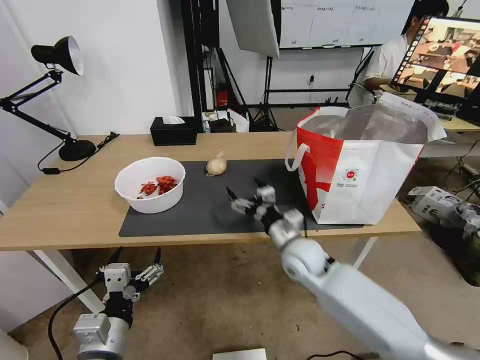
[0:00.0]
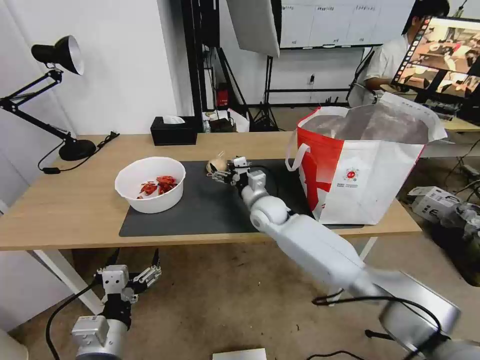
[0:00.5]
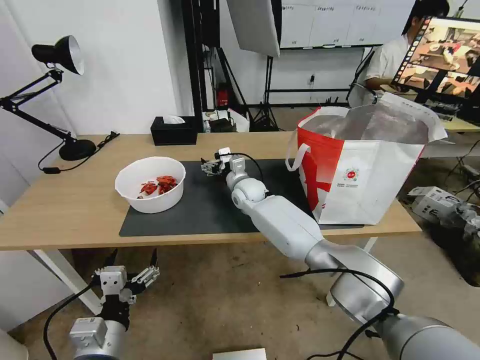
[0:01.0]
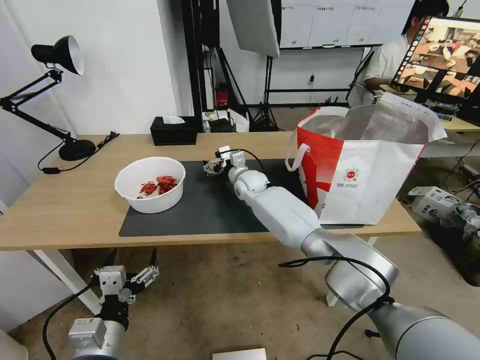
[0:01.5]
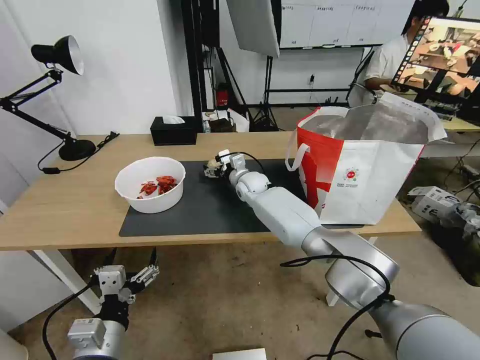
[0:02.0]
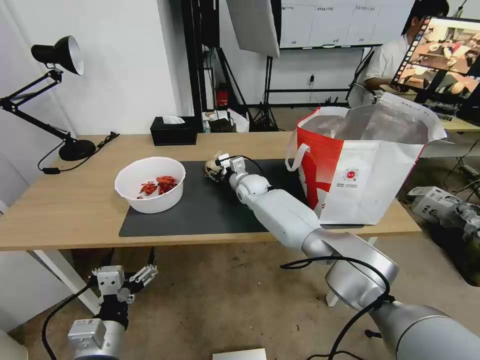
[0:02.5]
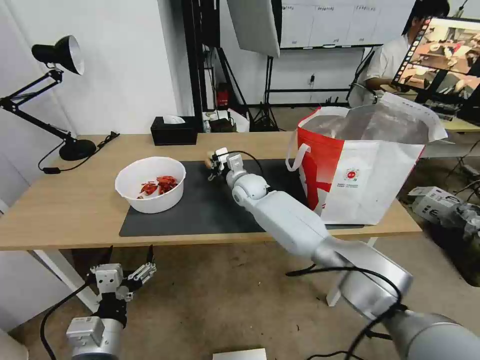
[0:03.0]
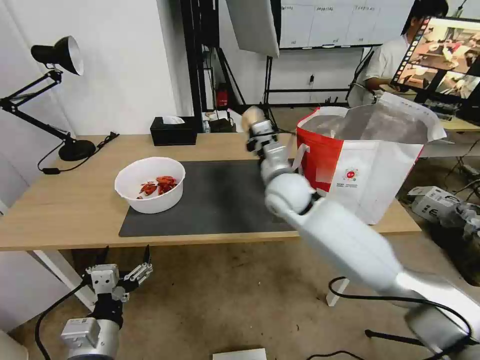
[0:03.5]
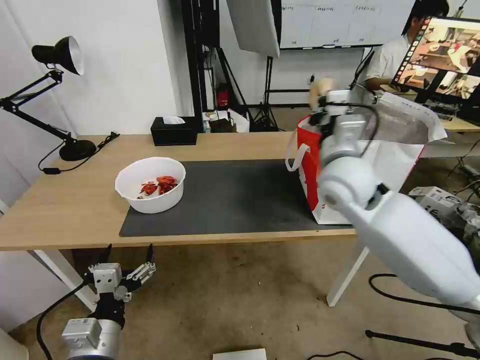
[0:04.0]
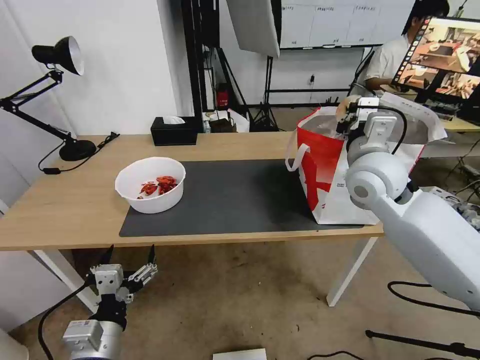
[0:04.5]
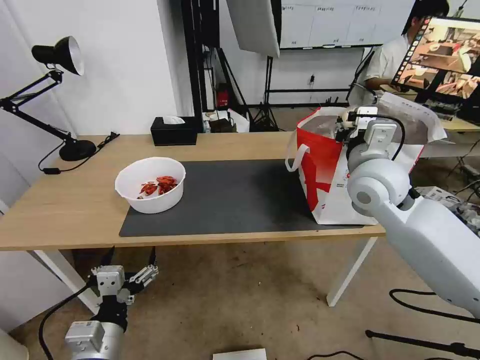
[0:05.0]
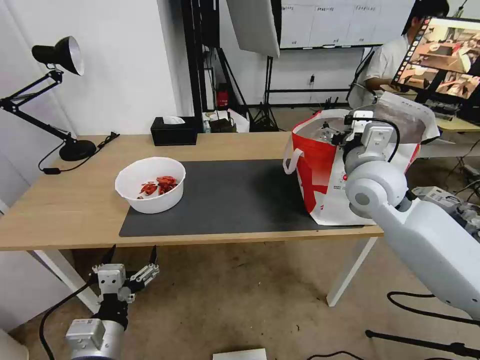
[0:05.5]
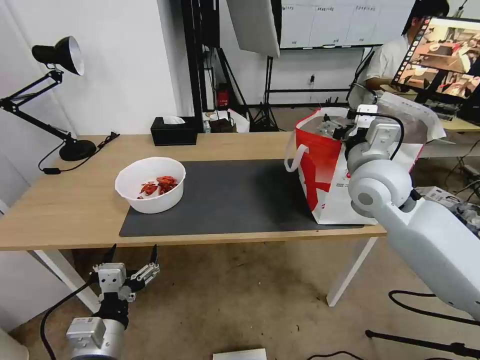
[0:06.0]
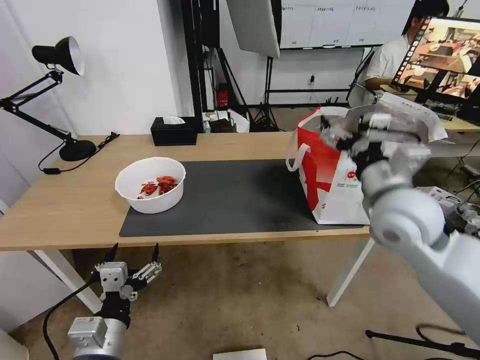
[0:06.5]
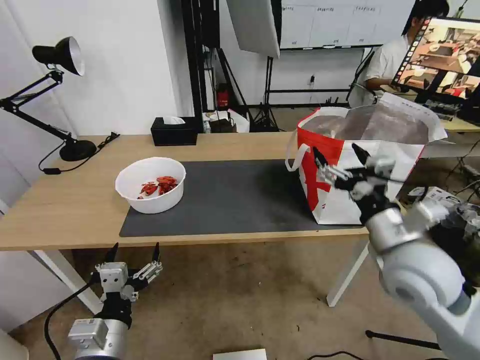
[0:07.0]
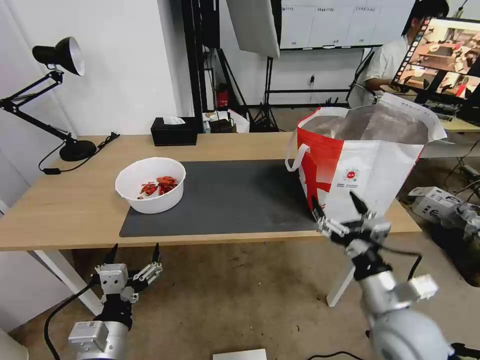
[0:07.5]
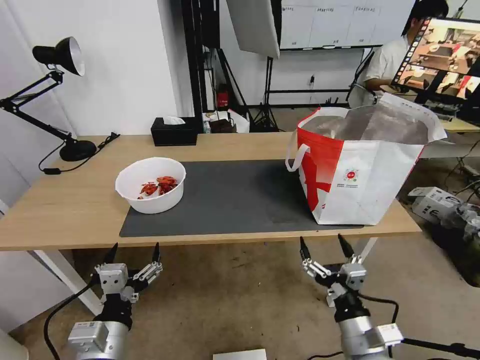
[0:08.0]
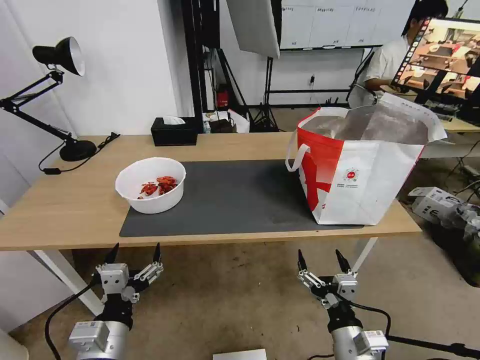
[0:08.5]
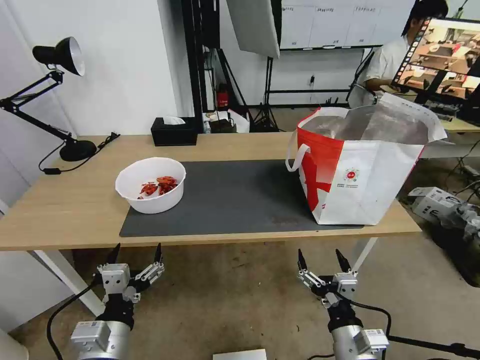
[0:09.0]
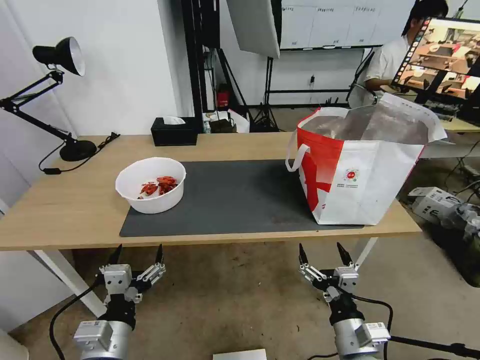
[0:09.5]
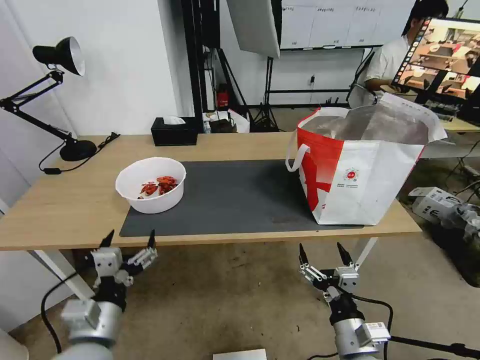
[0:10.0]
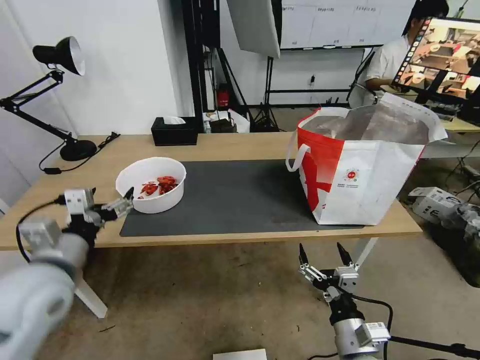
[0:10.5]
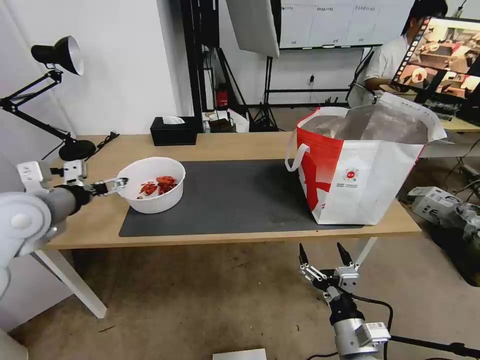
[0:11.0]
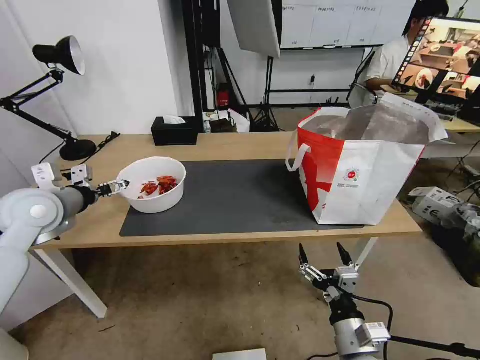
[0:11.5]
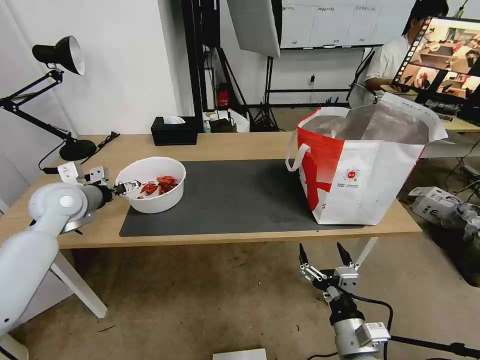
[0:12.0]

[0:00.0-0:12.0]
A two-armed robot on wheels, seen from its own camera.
Task of the whole recording: Pick up the trash from the table and place it into the takeout bag.
0:00.0 to 0:02.0: The right gripper heads forward and to the left, covering about 25 cm.
0:02.0 to 0:04.0: The right gripper moves upward, backward and to the right, approximately 30 cm, and closes up.
0:04.0 to 0:06.0: The right gripper opens.
0:06.0 to 0:08.0: The right gripper heads backward and downward, covering roughly 35 cm.
0:08.0 to 0:10.0: The grippers move only a little.
0:10.0 to 0:12.0: The left gripper moves forward and to the left, some 30 cm.

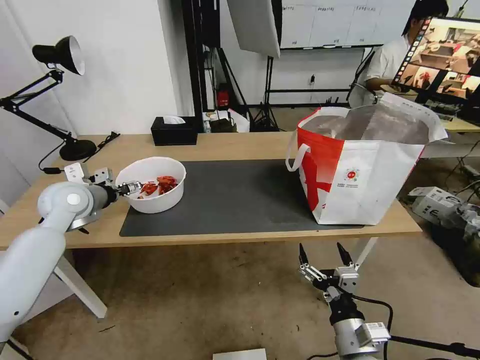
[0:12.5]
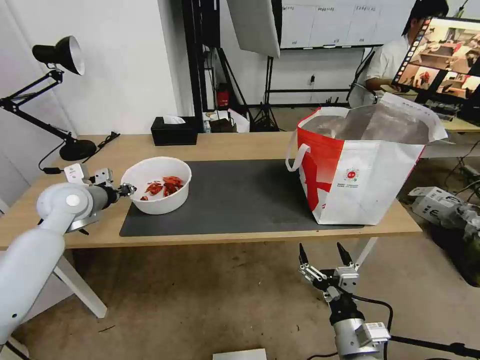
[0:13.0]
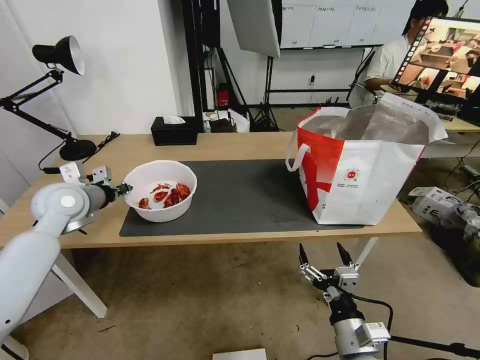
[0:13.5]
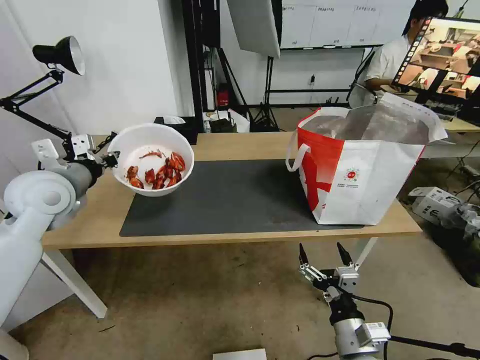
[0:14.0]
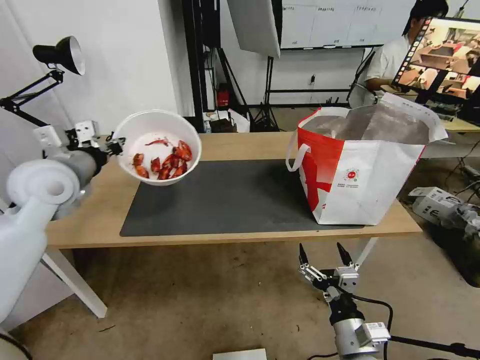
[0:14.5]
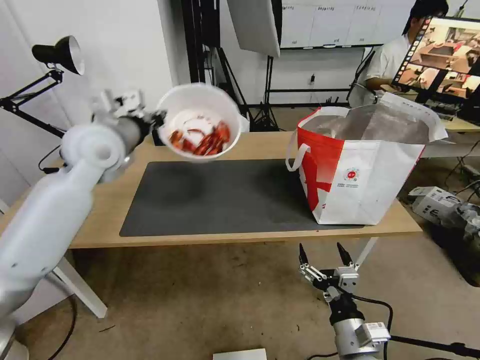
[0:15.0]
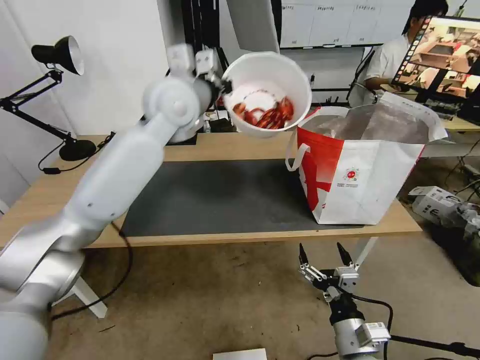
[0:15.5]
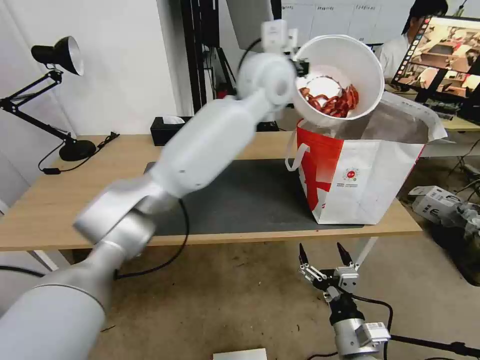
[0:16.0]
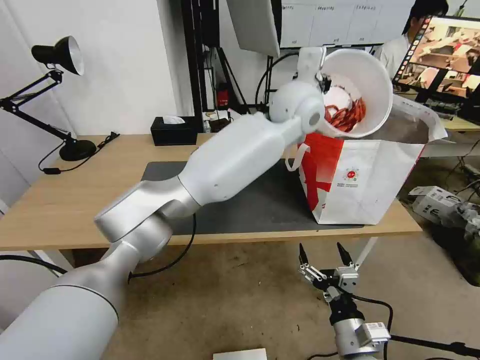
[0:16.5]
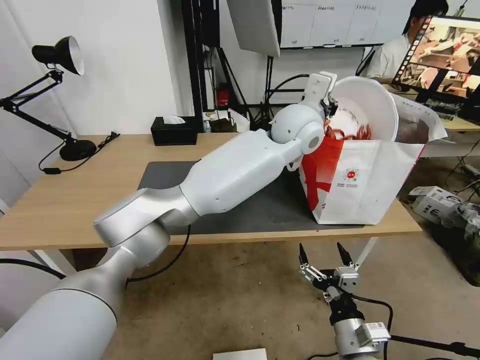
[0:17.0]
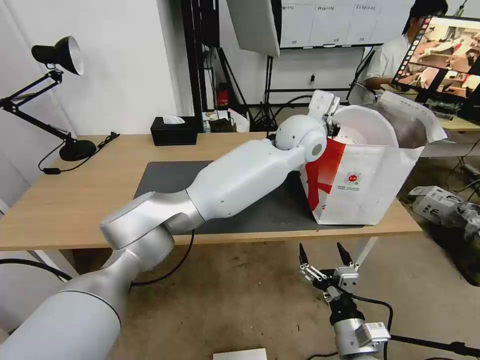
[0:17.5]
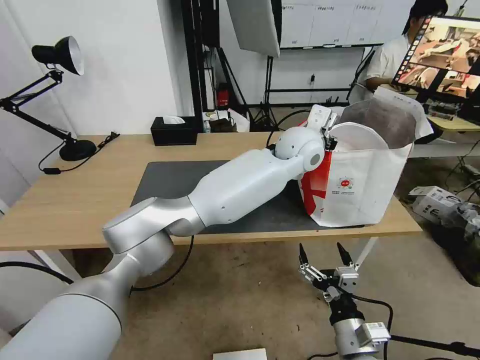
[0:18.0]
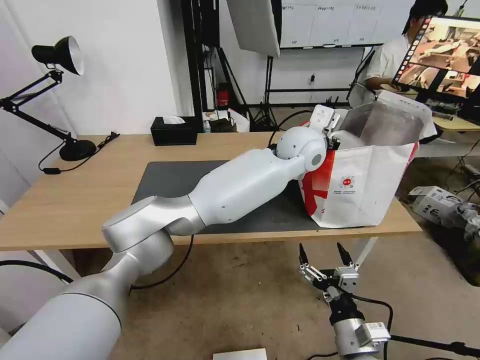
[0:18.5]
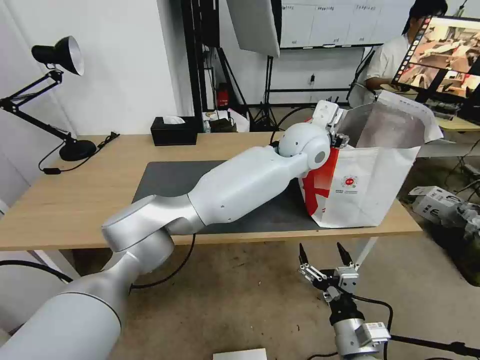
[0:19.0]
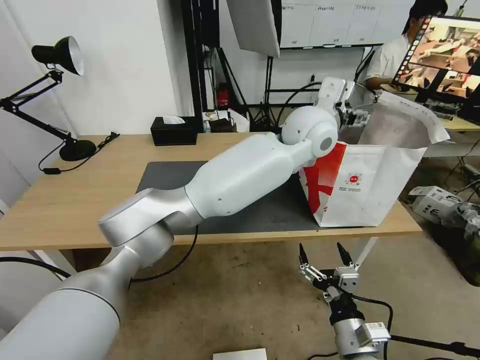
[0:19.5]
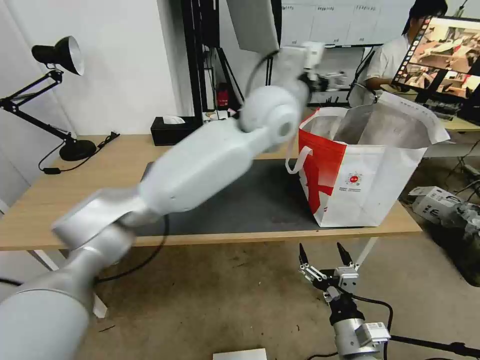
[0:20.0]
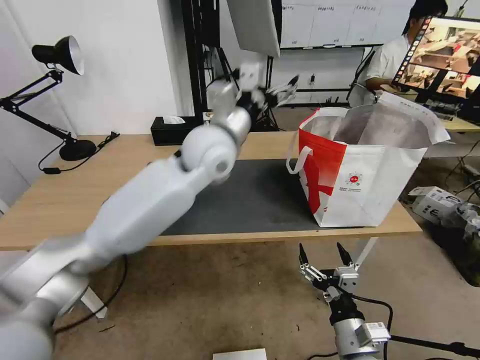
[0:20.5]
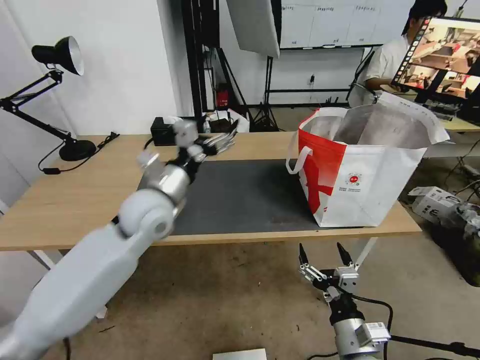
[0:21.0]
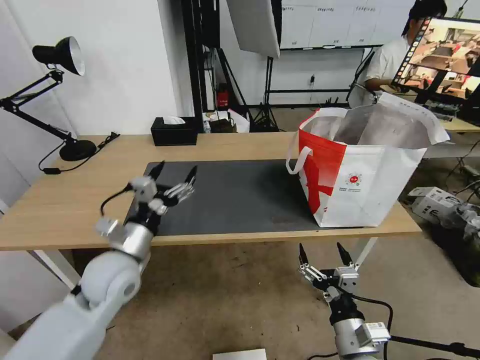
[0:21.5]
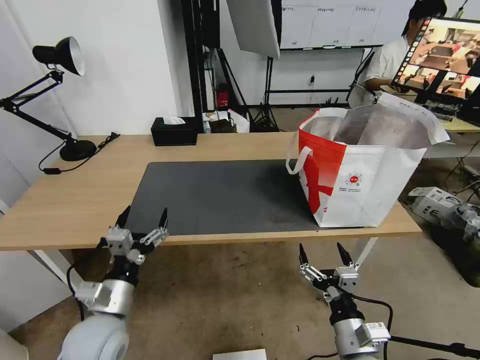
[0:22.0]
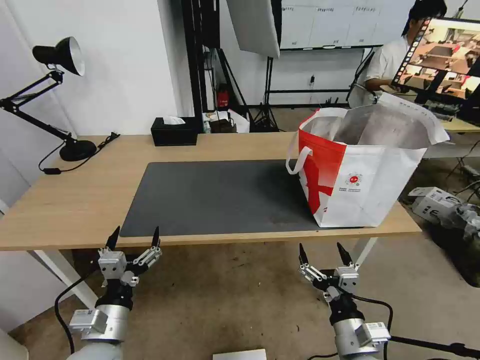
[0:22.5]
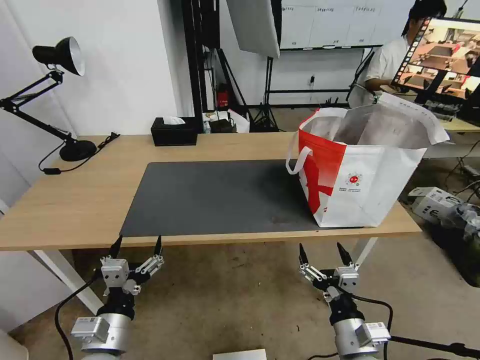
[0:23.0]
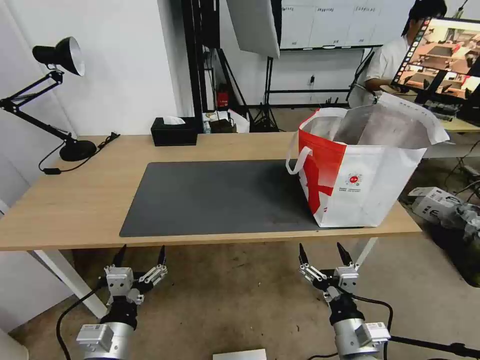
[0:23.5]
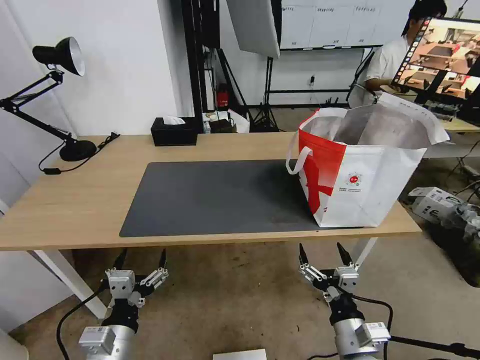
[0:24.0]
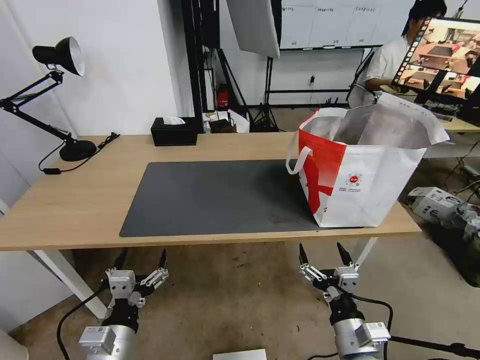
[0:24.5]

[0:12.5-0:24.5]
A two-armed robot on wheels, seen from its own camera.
Task of the whole recording: Pick up the trash from the table and place it into the takeout bag.
0:12.5 to 0:14.5: The left gripper shifts roughly 10 cm upward, and closes.
0:14.5 to 0:16.5: The left gripper shifts roughly 40 cm to the right.
0:16.5 to 0:18.5: The left gripper shifts about 10 cm downward.
0:18.5 to 0:20.5: The left gripper heads to the left, covering roughly 20 cm, and opens up.
0:20.5 to 0:22.5: The left gripper shifts approximately 40 cm backward, downward and to the left.
0:22.5 to 0:24.5: There are only small adjustments of the grippers.

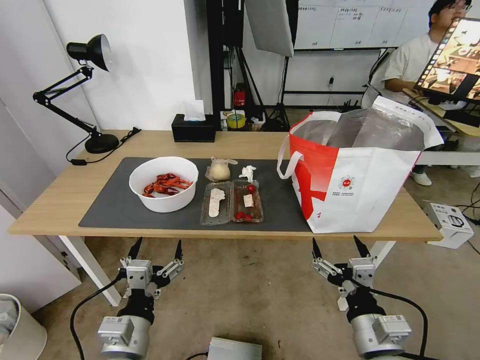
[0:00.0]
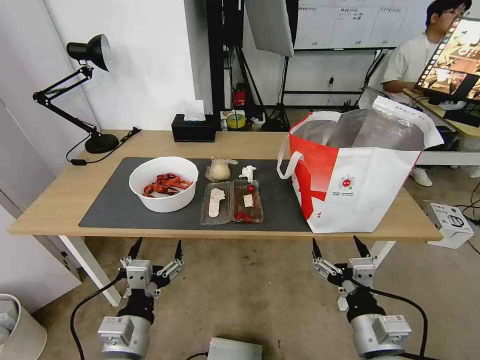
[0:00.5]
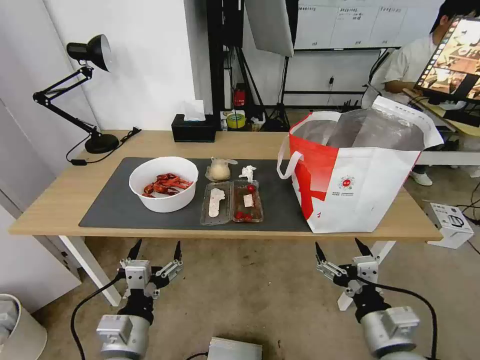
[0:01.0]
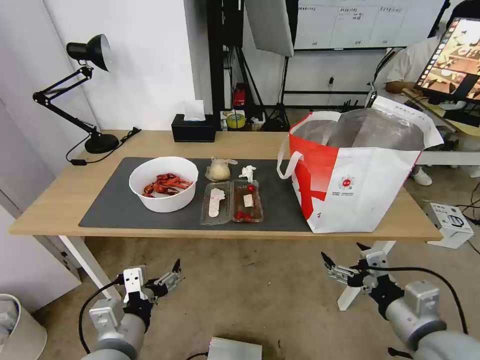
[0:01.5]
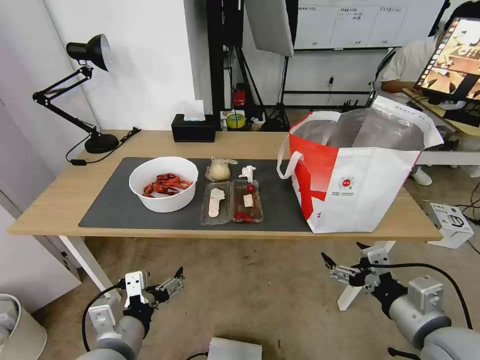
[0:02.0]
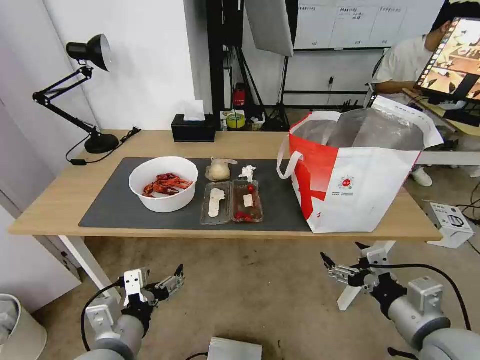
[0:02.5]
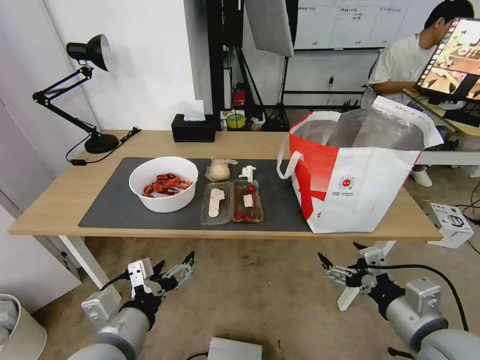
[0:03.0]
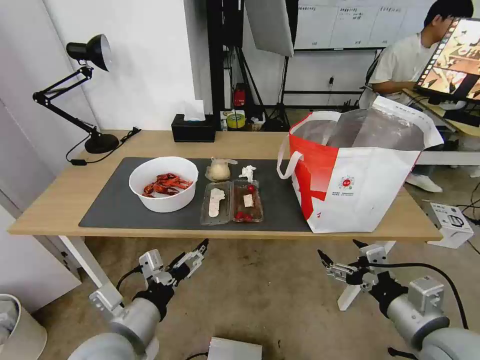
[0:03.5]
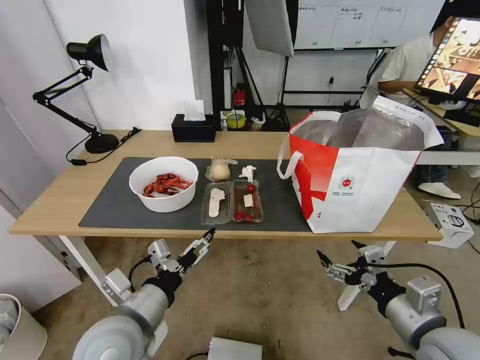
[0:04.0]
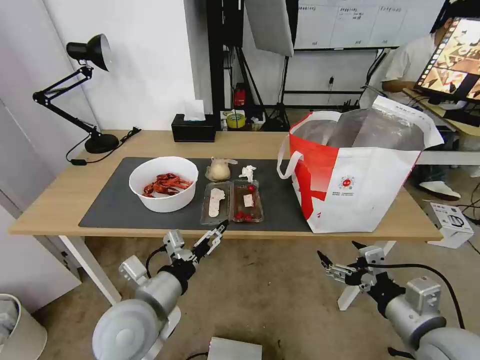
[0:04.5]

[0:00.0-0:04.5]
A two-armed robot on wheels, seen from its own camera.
Task of the whole recording: Pick up the trash from the table and place it into the takeout bag.
0:02.0 to 0:04.5: The left gripper travels forward by approximately 5 cm.
